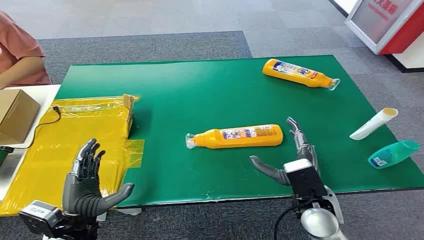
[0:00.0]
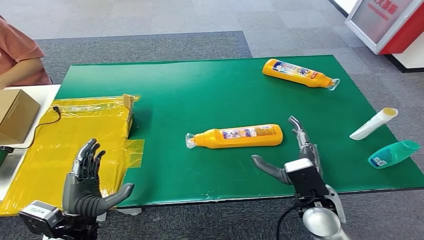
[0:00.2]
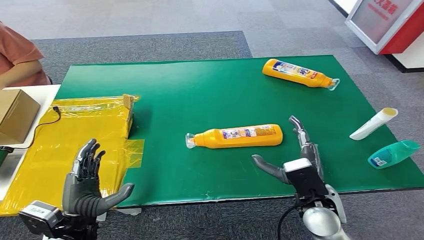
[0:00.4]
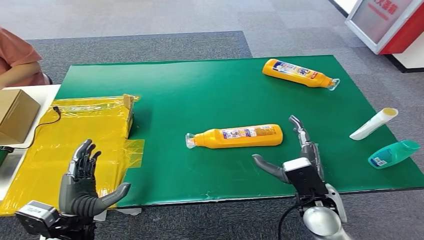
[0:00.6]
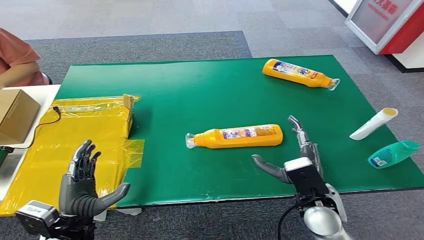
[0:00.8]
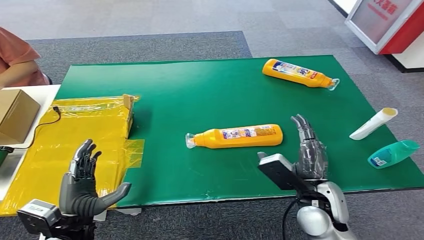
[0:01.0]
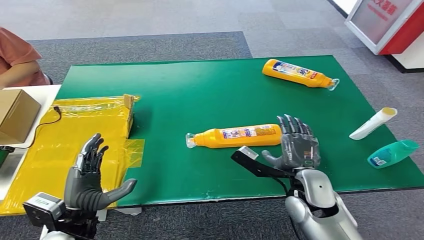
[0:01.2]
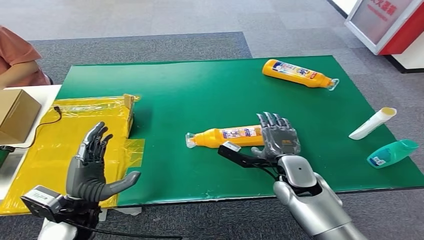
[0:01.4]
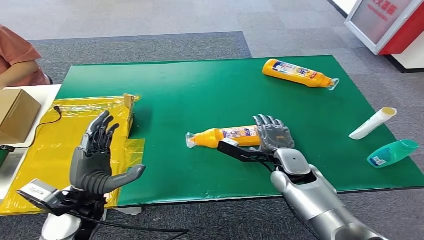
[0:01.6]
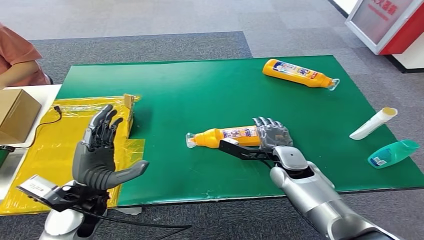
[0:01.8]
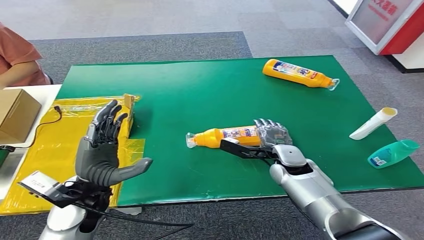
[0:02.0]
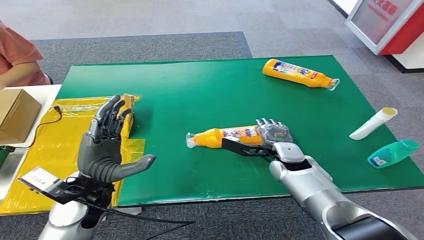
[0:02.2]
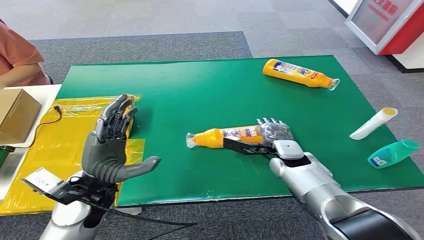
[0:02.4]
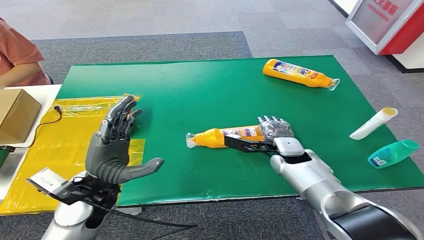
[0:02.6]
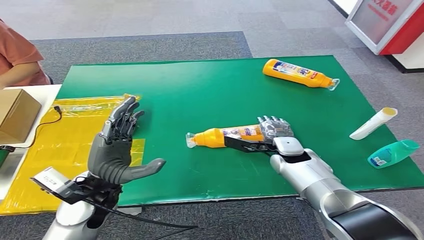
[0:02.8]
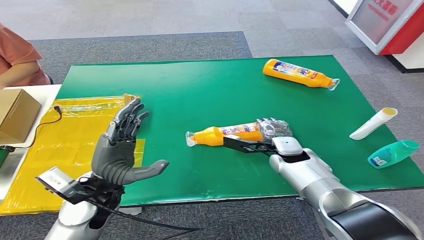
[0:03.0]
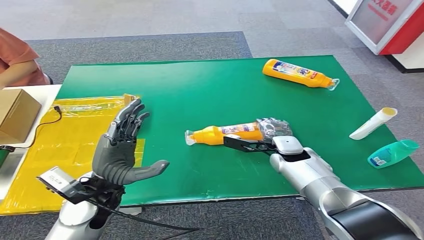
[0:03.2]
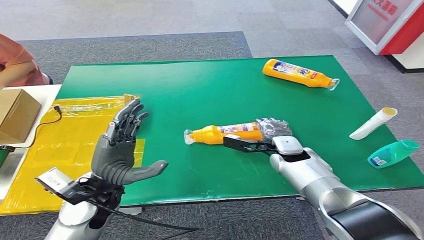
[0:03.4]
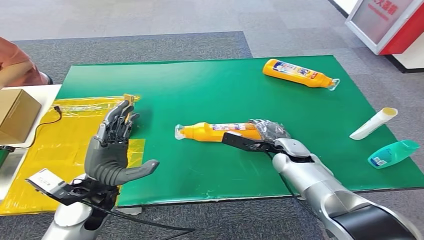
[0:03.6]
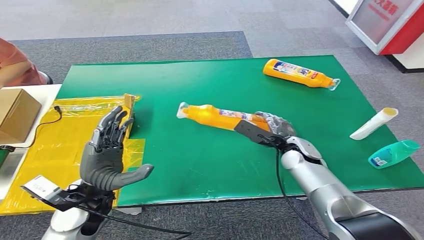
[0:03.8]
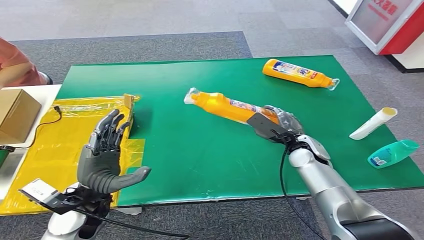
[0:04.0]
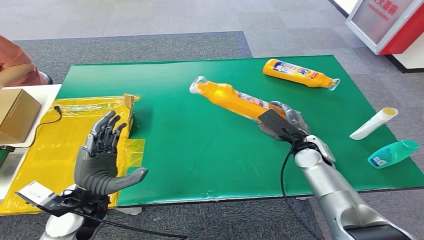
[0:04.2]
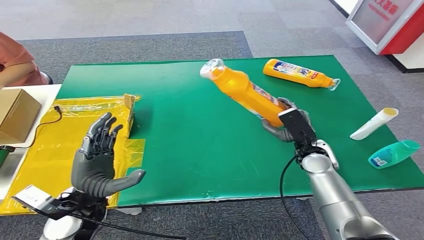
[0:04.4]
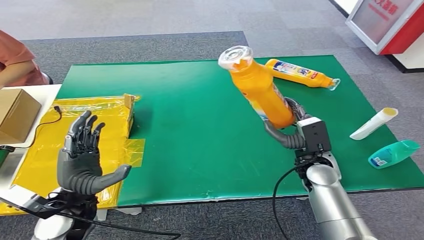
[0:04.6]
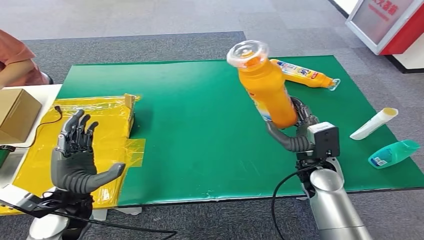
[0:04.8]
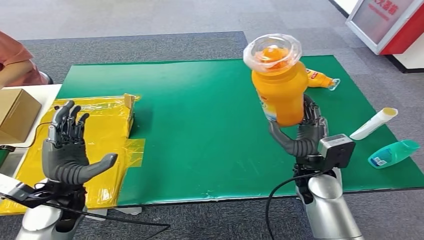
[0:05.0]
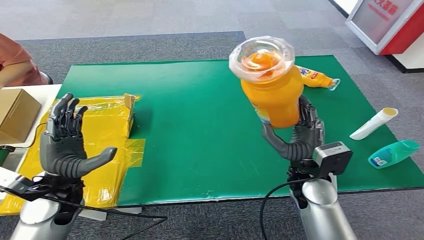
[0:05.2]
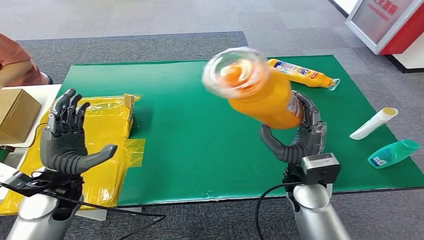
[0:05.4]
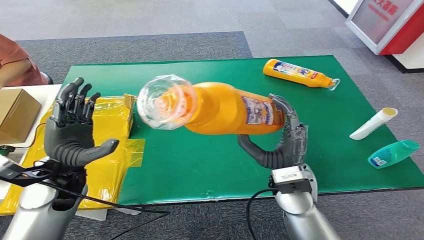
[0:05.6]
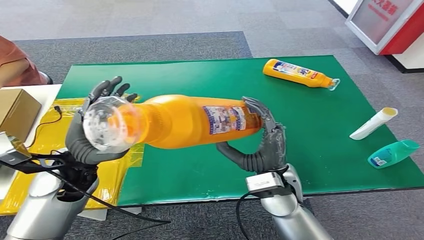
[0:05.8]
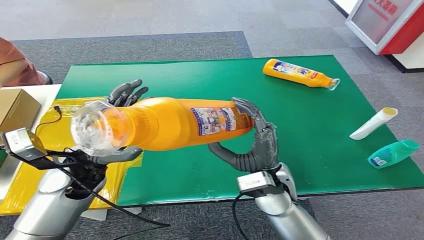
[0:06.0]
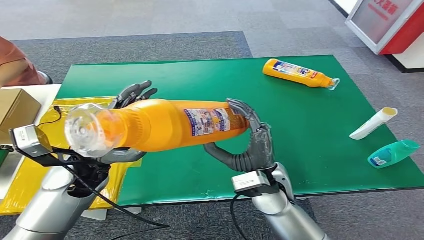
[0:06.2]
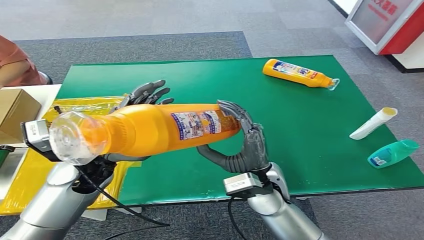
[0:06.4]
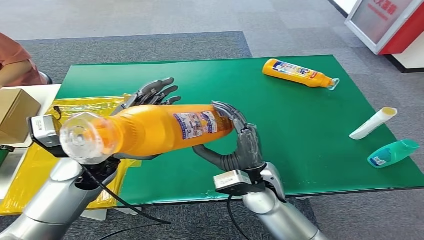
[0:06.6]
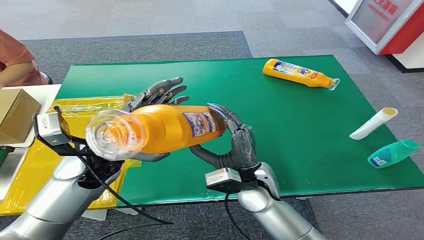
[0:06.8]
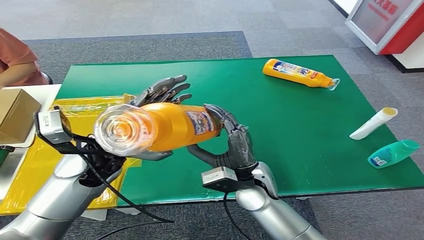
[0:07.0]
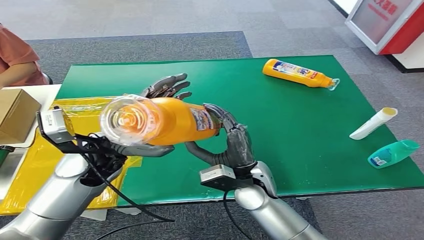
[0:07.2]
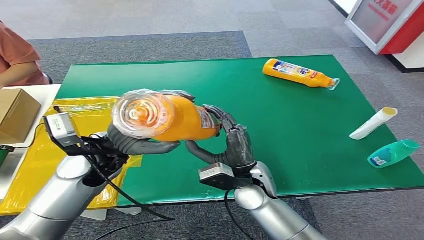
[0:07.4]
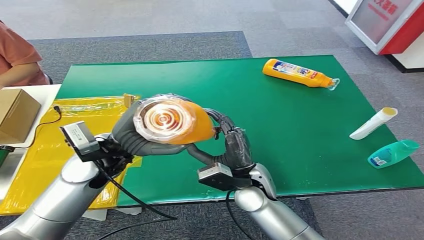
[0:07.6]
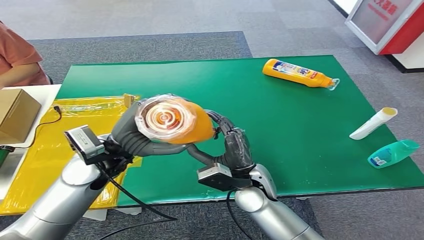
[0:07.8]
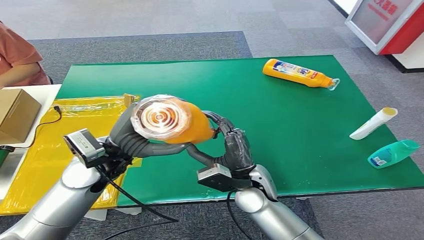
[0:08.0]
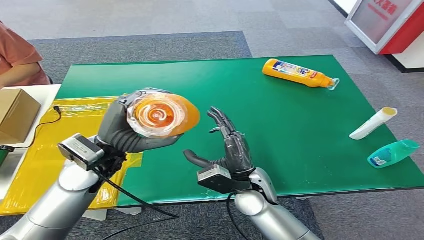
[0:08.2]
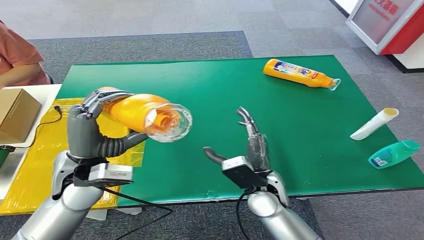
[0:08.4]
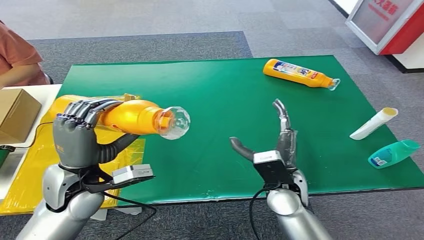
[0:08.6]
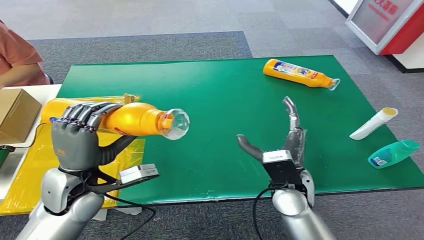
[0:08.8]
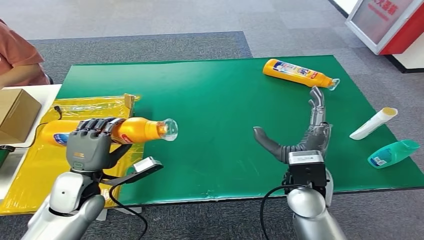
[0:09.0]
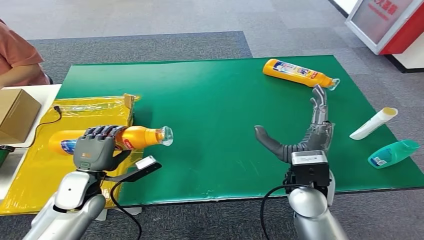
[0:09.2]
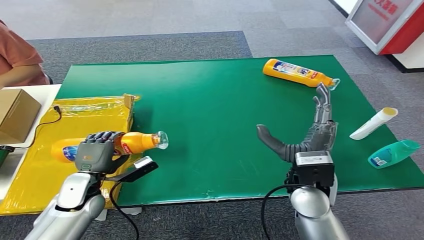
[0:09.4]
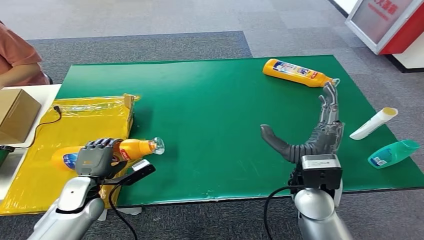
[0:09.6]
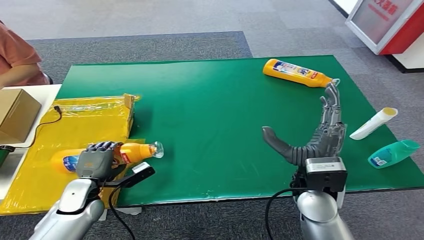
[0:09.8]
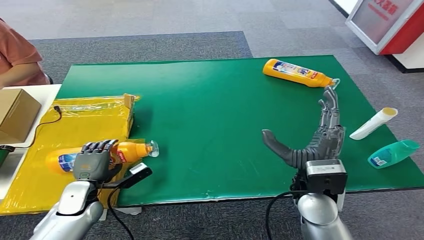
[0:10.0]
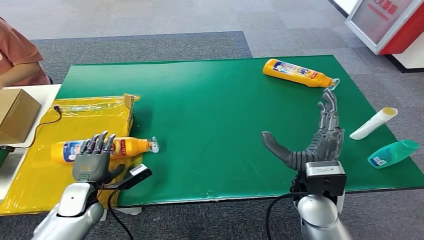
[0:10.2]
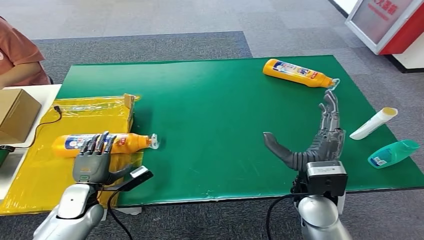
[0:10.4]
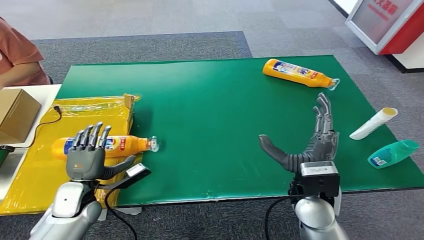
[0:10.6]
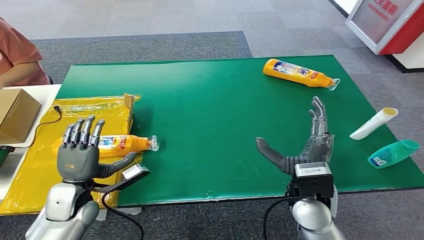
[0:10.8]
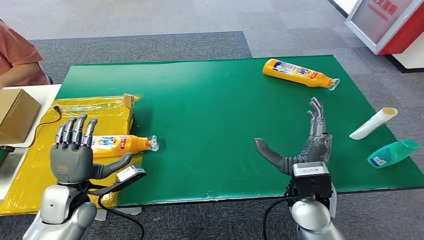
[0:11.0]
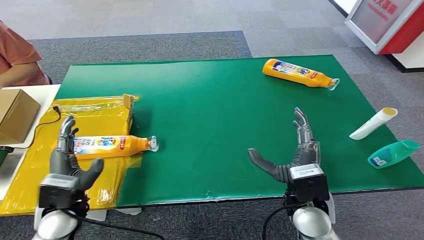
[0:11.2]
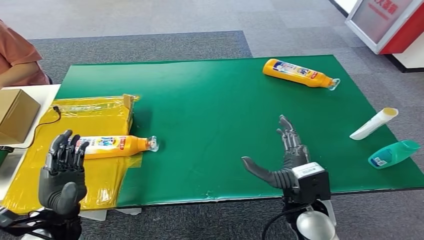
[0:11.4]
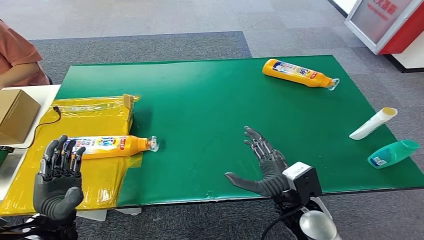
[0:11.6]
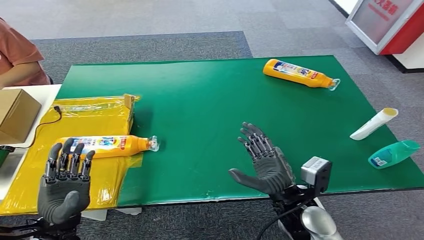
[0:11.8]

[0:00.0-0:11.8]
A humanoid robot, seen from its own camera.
Step, 0:00.0 to 0:05.4: Pick up the bottle from the table.
Step, 0:05.6 to 0:11.8: Turn the bottle to the front side.
0:06.0 to 0:07.4: The left hand moves approximately 5 cm.
0:08.8 to 0:10.4: The left hand moves downward, roughly 15 cm.
0:10.4 to 0:11.8: The left hand moves backward and upward, roughly 15 cm; the right hand shifts roughly 5 cm downward.
